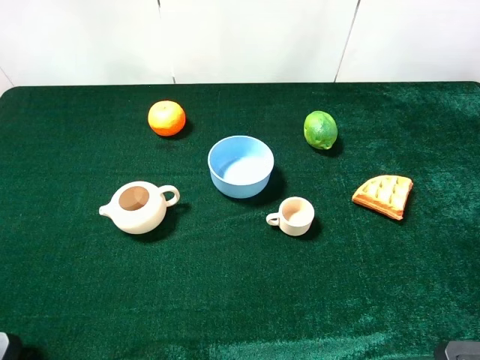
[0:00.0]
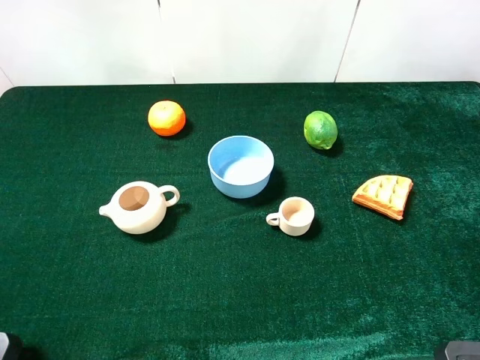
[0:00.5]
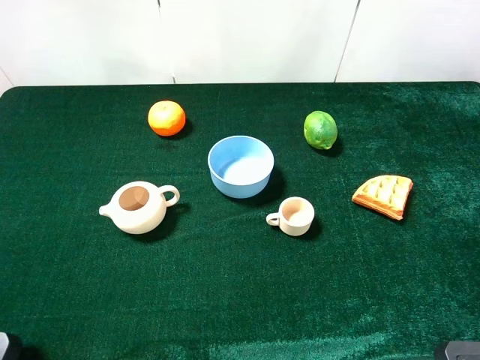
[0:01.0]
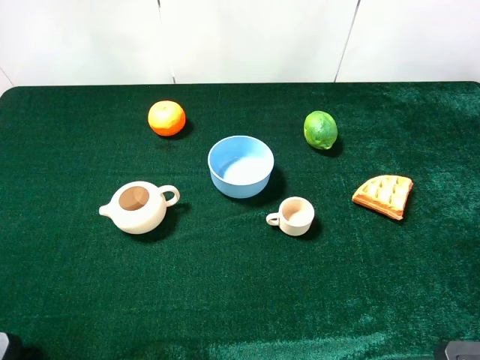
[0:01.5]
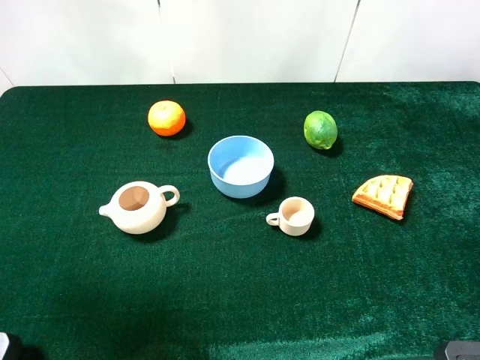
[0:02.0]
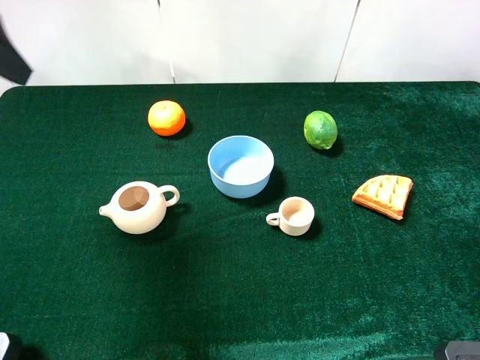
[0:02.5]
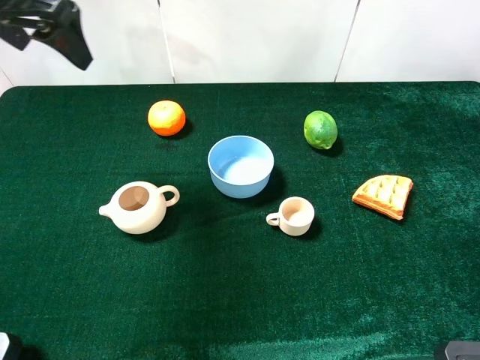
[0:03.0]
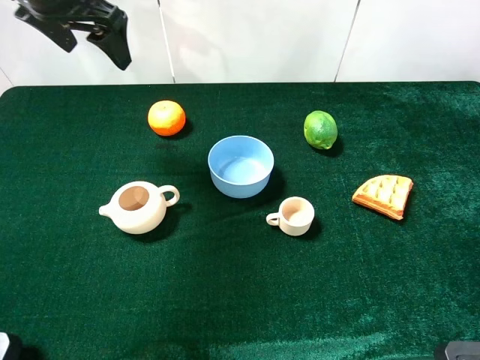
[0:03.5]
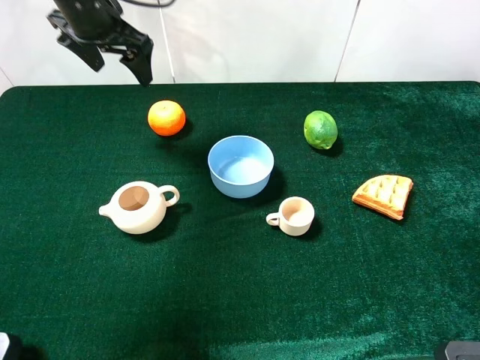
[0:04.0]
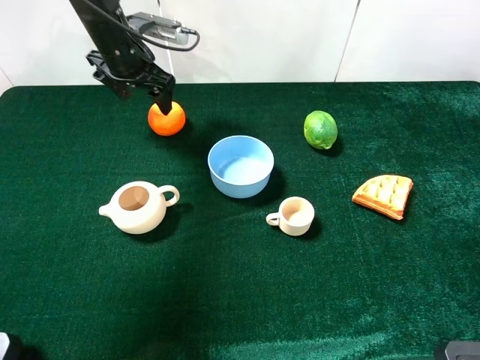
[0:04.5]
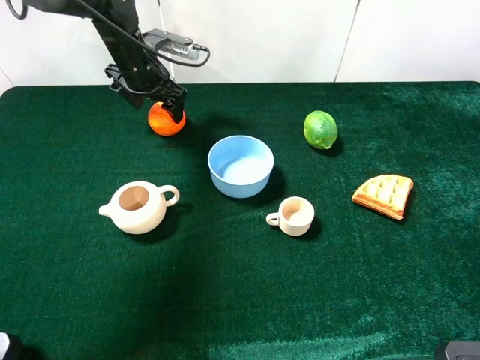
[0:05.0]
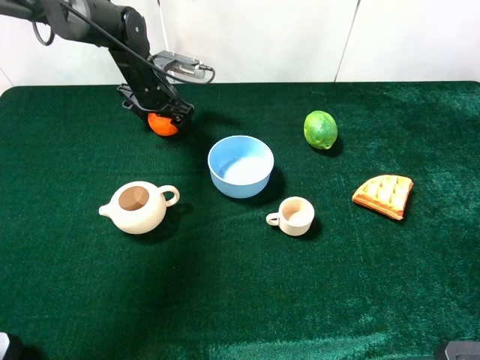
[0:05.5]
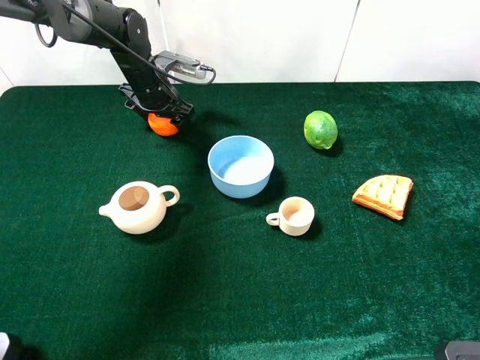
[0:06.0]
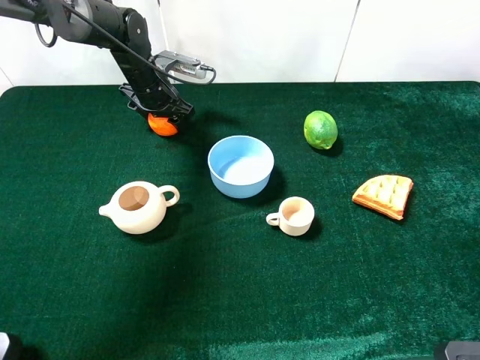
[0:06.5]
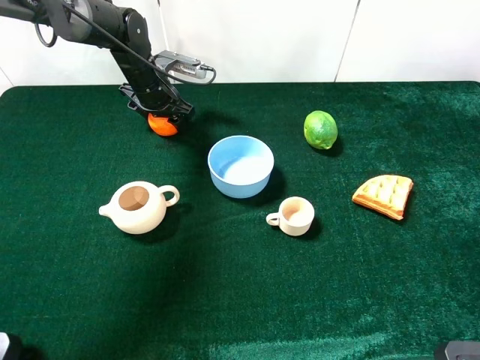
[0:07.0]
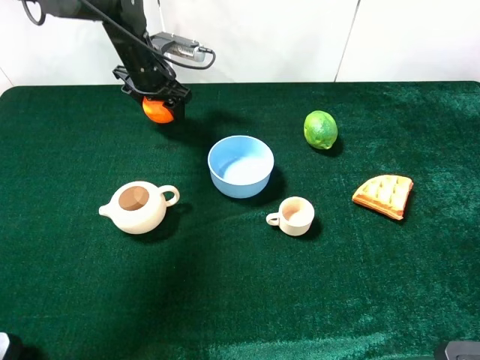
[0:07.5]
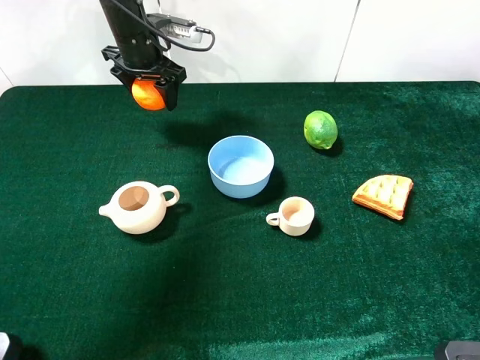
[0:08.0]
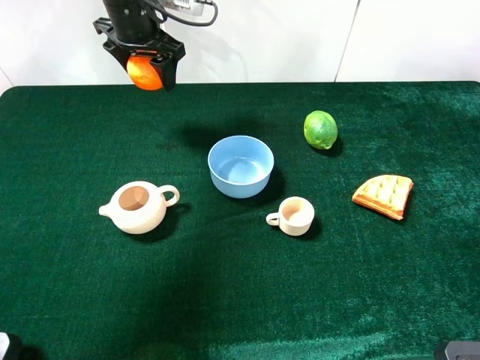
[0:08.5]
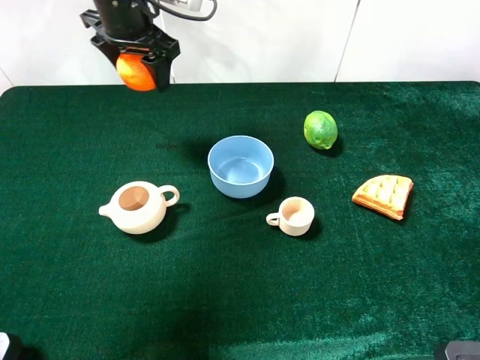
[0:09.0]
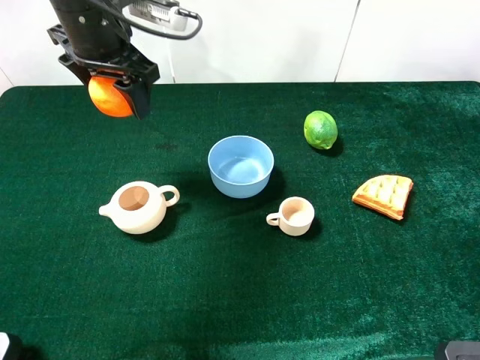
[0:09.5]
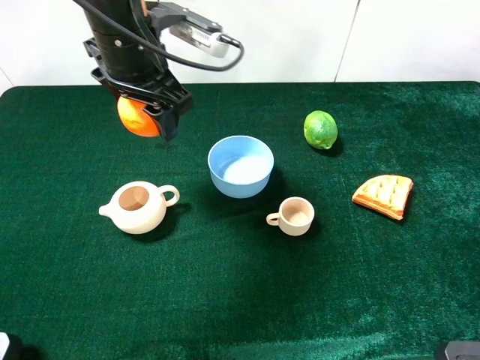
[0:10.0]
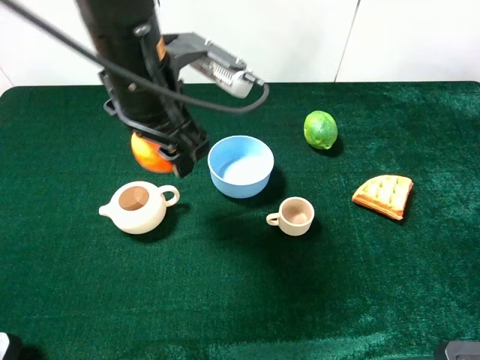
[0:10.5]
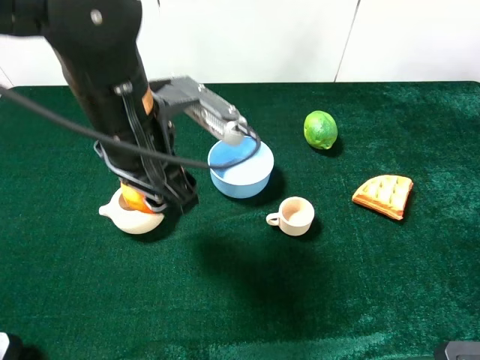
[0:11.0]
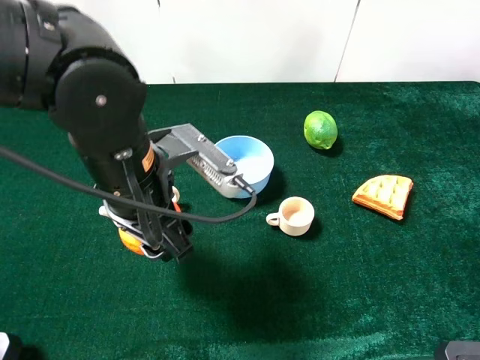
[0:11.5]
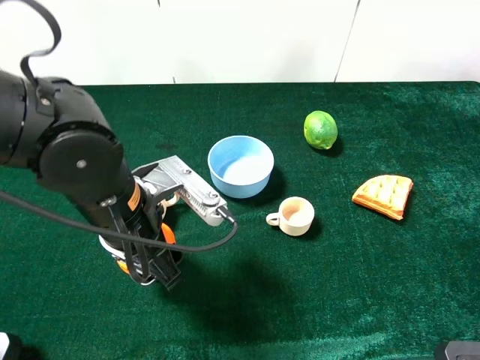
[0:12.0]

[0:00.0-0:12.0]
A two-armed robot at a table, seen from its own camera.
Task of the whole recording: the gripper move the object.
Step, 0.0 to 6.5 s: Grasp the orange with the left gripper.
0.0 to 2.0 s: The left gripper travels forward and upward by some 15 cm.
2.0 to 4.0 s: The left gripper is displaced forward by approximately 30 cm.
4.0 to 6.0 s: The left gripper heads downward, covering about 15 cm.
6.0 to 8.0 s: The left gripper shifts some 10 cm upward, and closes its fingers.
8.0 to 10.0 s: The left gripper moves backward and upward, approximately 15 cm.
10.0 to 12.0 s: The left gripper shifts approximately 20 cm backward and downward.

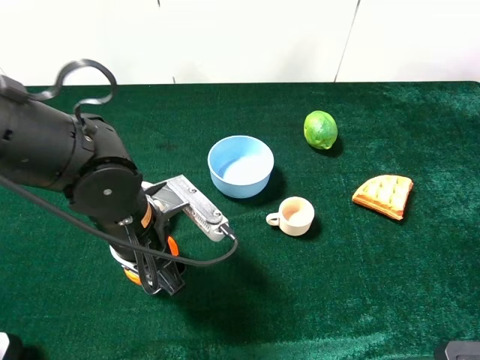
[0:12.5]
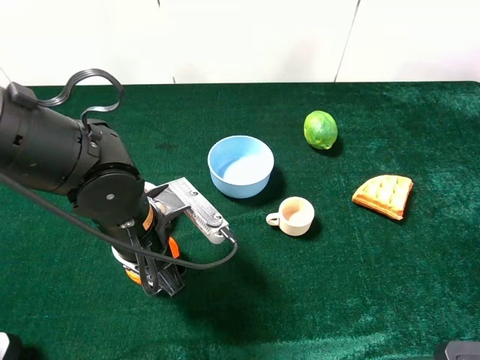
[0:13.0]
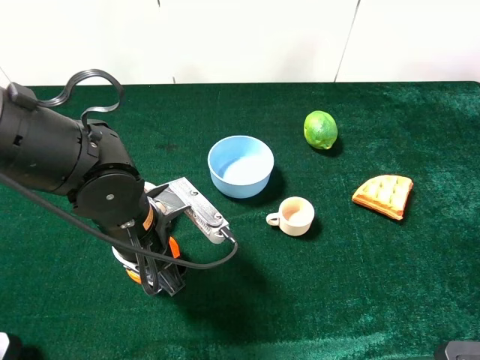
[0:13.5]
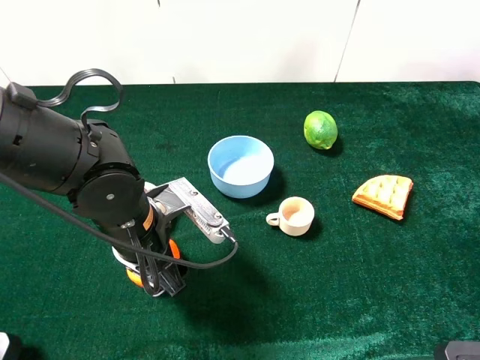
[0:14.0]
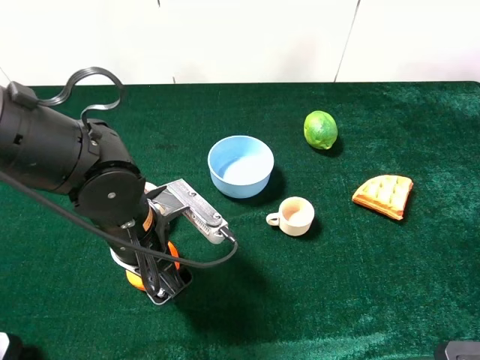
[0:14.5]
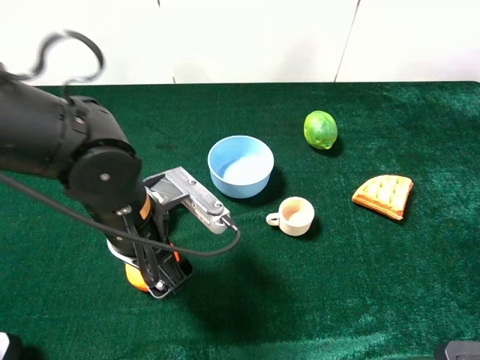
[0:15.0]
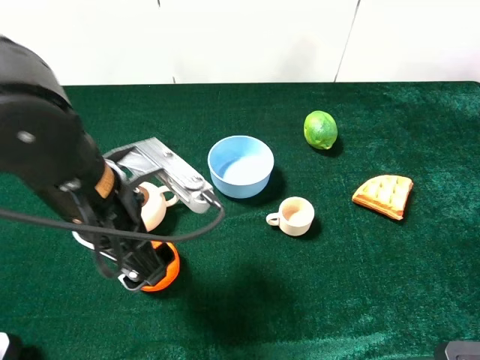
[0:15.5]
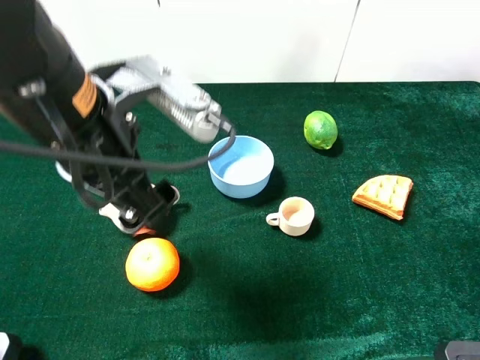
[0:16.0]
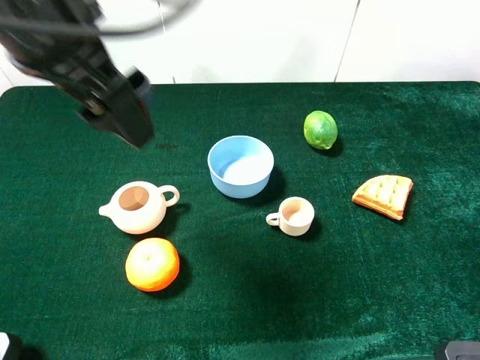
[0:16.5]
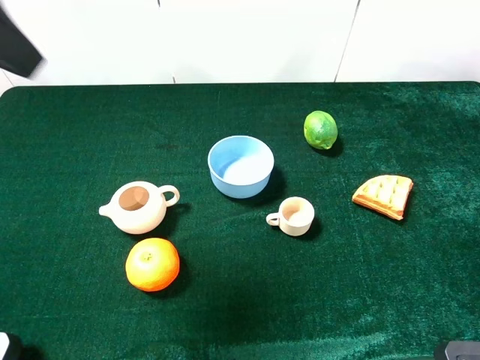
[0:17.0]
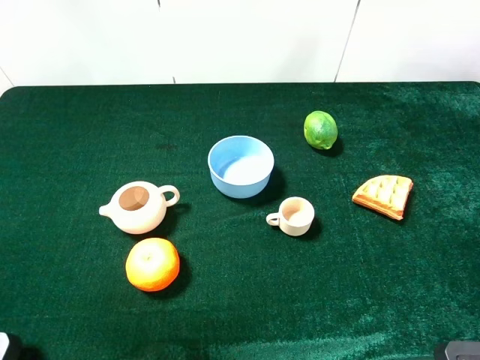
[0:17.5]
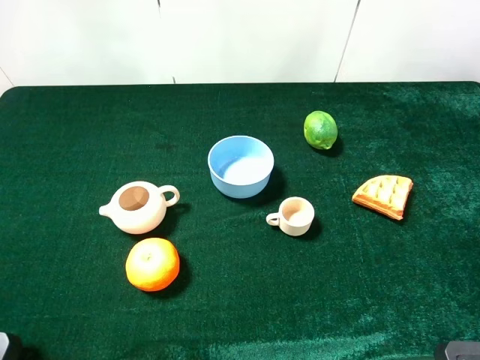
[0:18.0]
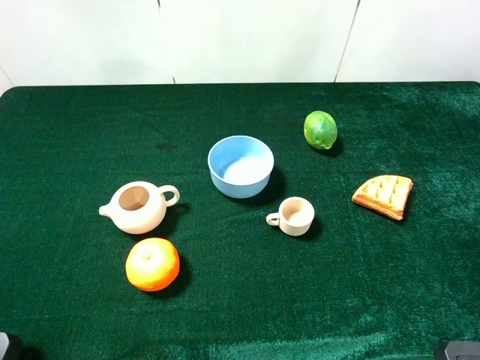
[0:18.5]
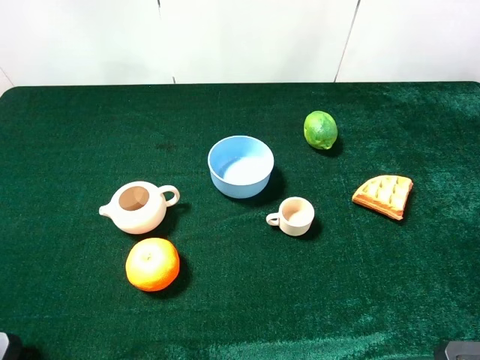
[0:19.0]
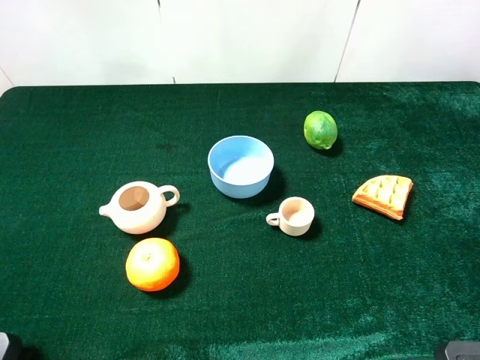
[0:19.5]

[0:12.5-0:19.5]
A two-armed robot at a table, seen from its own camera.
Task of the whole recording: the gripper move the object.
Step, 12.5 to 14.5 s: Place the orange on the table with the left gripper.
12.5 to 14.5 s: The left gripper opens its fingers.
14.5 to 16.0 s: The left gripper goes about 15 cm upward.
16.0 to 17.5 s: The left gripper goes about 25 cm to the left, upward and backward.

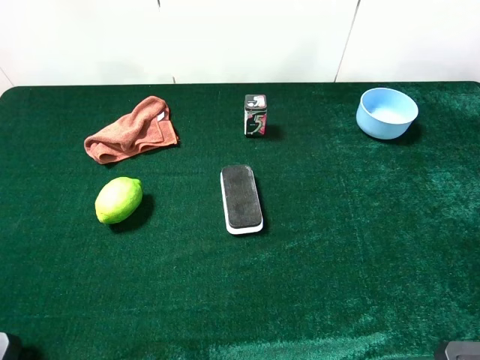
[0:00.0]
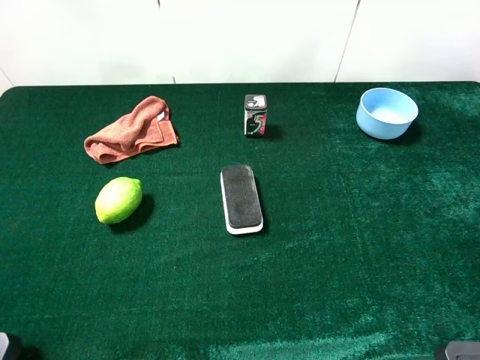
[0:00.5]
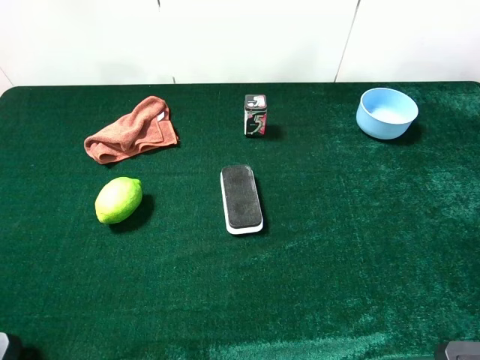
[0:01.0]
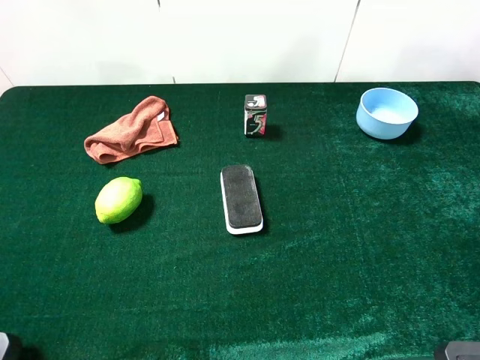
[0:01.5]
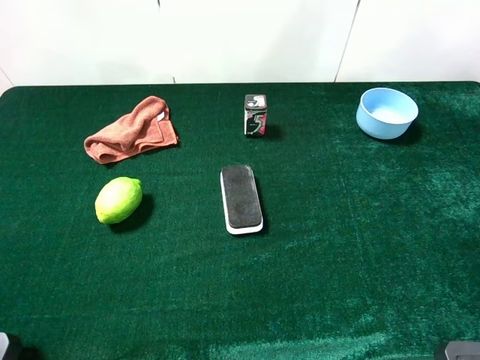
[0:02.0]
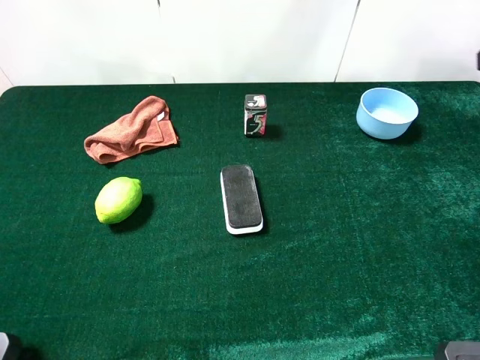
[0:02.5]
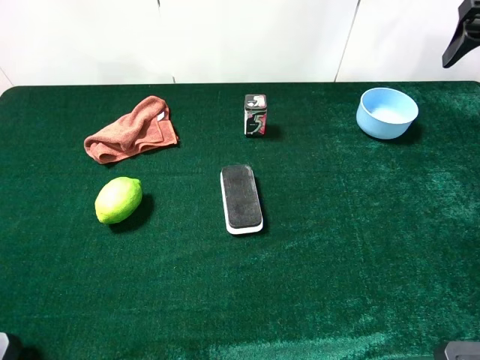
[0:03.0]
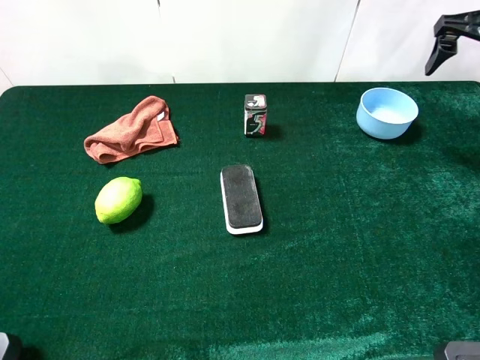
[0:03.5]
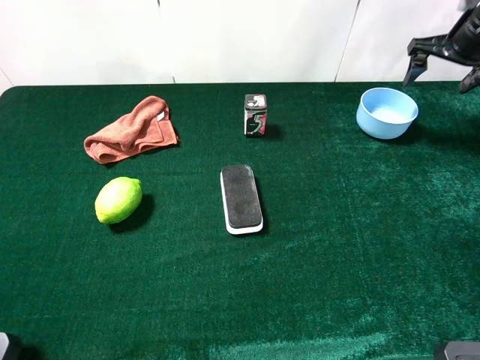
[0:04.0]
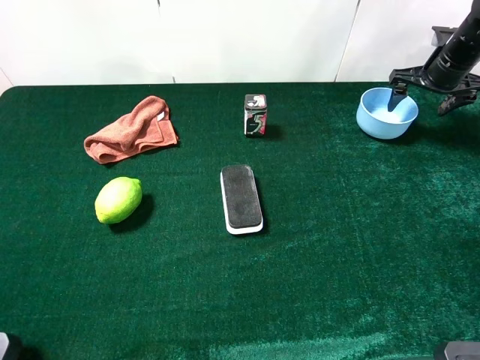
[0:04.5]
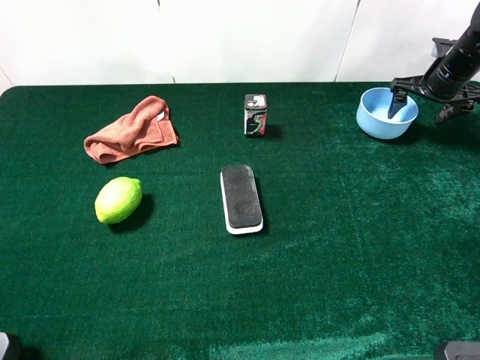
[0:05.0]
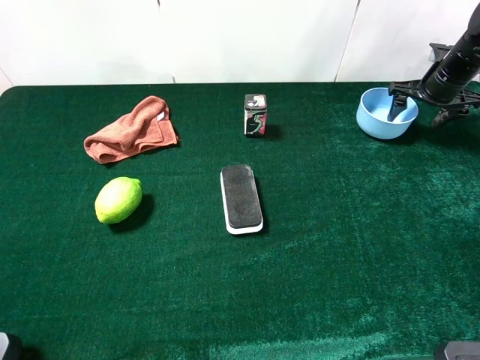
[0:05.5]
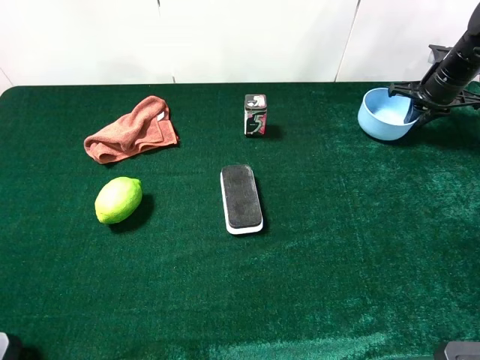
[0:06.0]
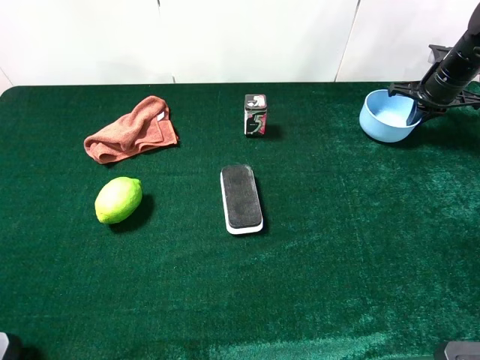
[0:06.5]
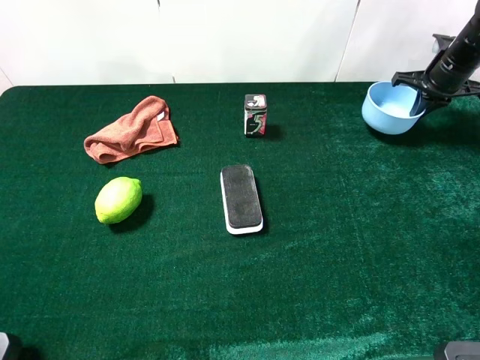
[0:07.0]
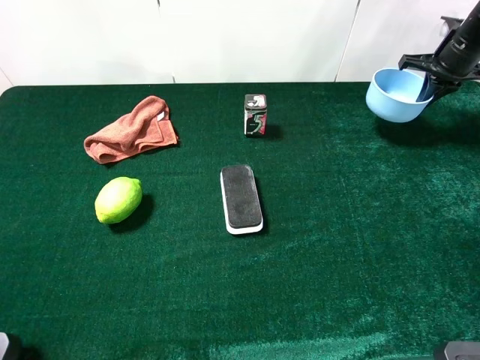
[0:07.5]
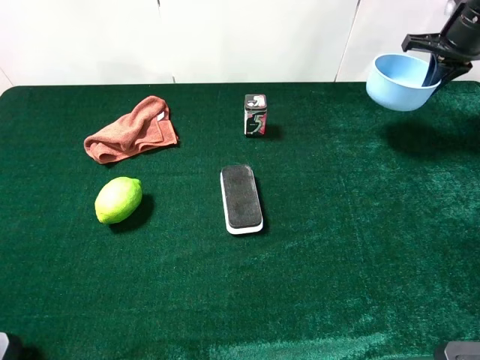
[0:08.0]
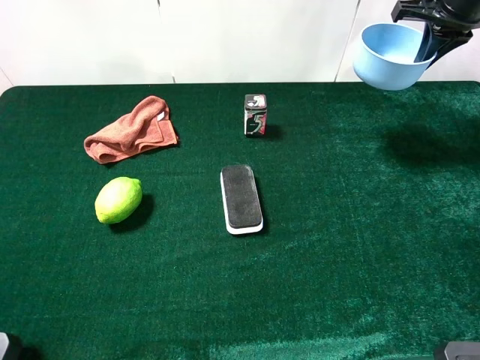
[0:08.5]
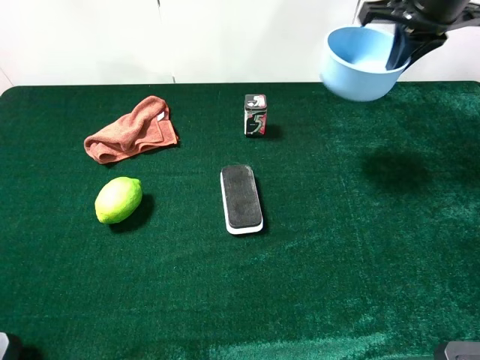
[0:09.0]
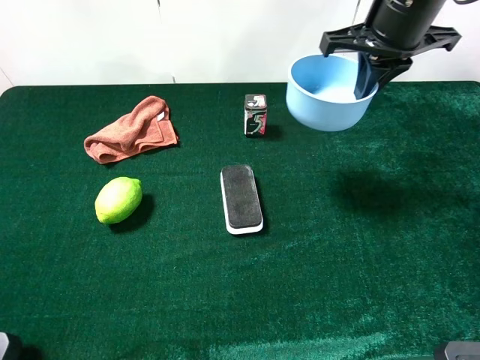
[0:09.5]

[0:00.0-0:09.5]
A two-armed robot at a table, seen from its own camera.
Task of the whole recording: the gripper move the object.
2.0 to 4.0 s: The right gripper goes about 35 cm forward and downward.
4.0 to 5.5 s: The right gripper heads downward, covering approximately 10 cm.
5.5 to 7.5 s: The right gripper moves upward, about 5 cm, and closes its fingers.
7.5 to 9.5 s: The right gripper goes some 25 cm to the left, backward and upward.
